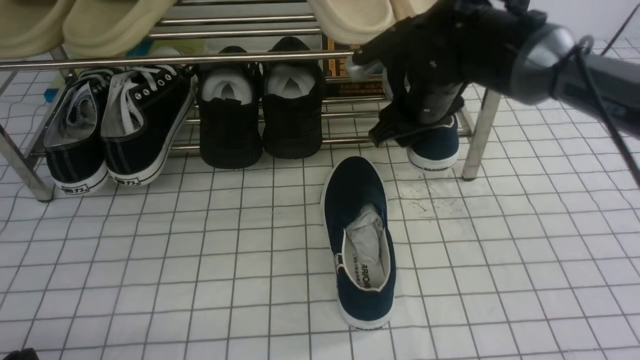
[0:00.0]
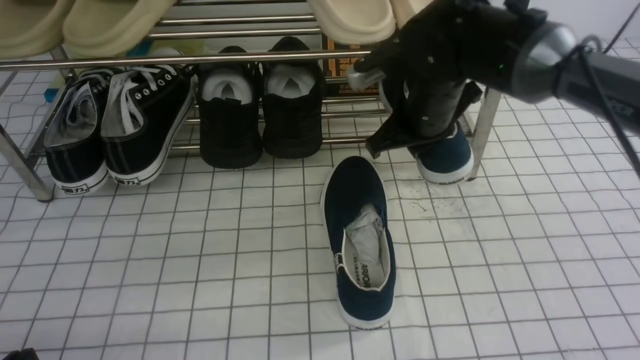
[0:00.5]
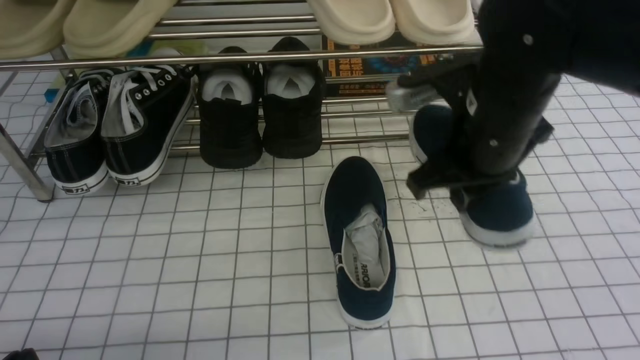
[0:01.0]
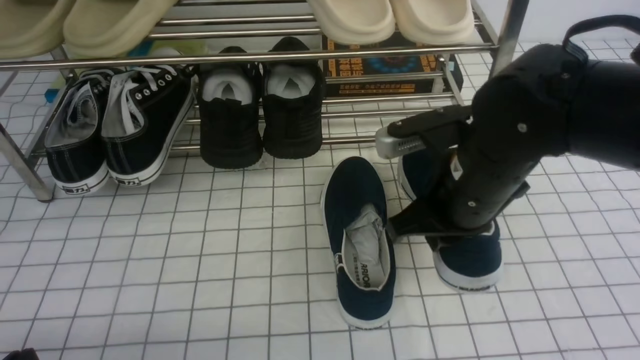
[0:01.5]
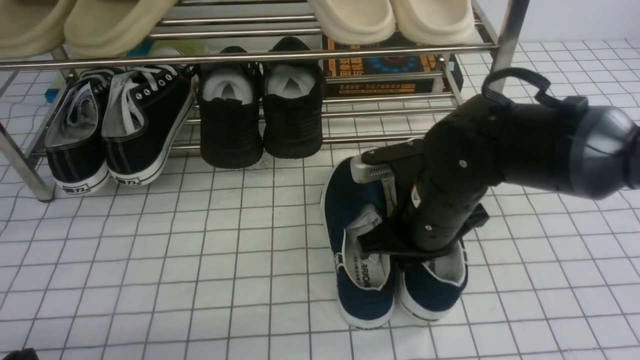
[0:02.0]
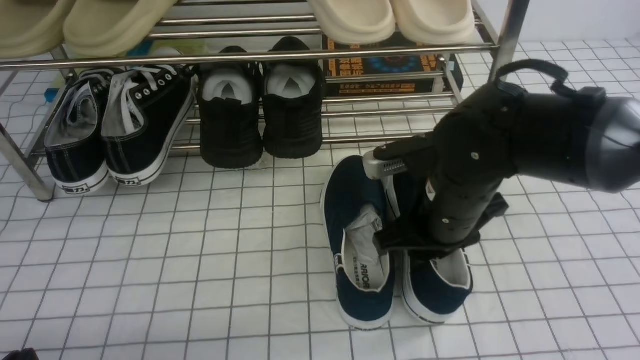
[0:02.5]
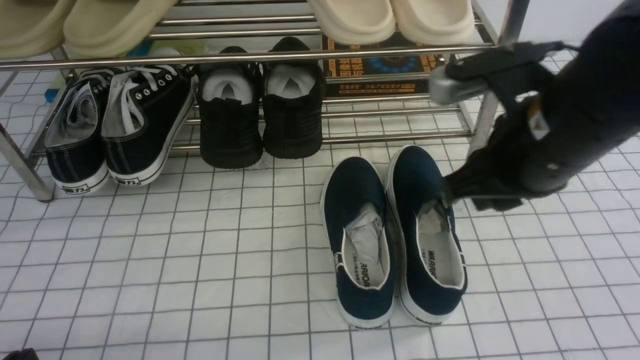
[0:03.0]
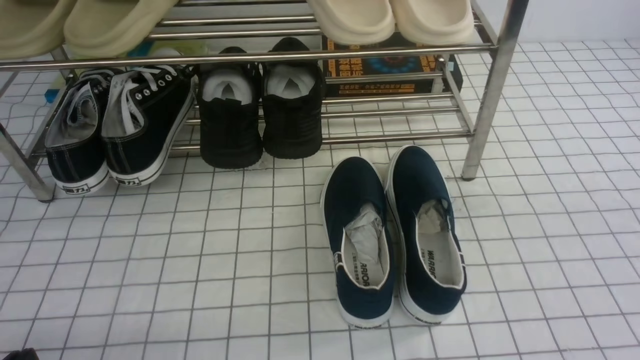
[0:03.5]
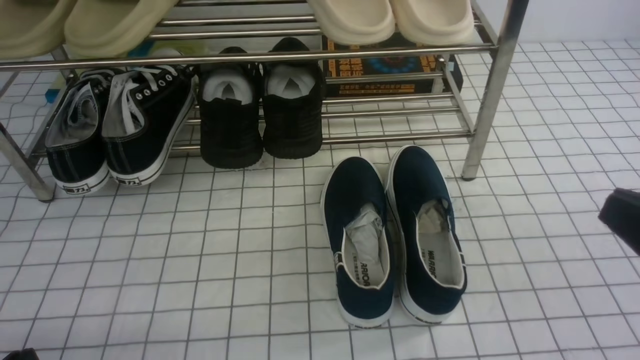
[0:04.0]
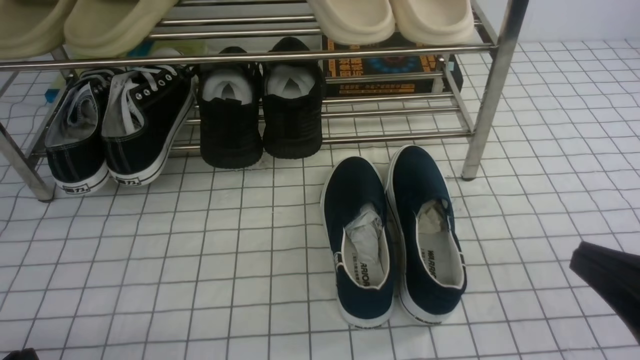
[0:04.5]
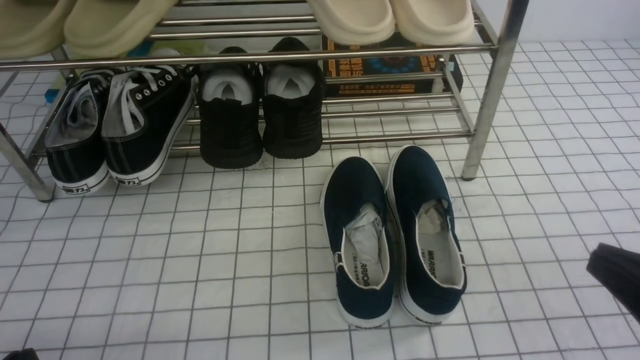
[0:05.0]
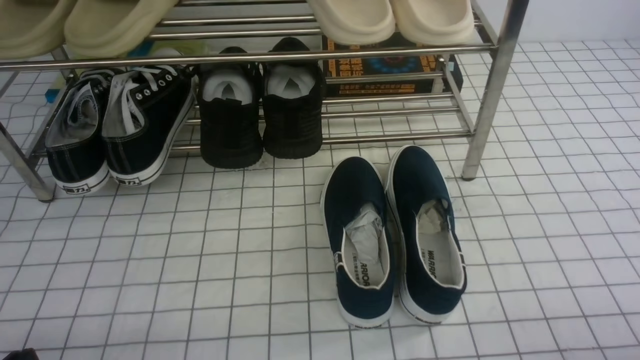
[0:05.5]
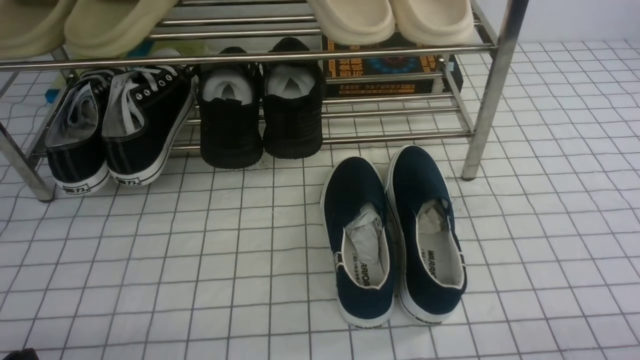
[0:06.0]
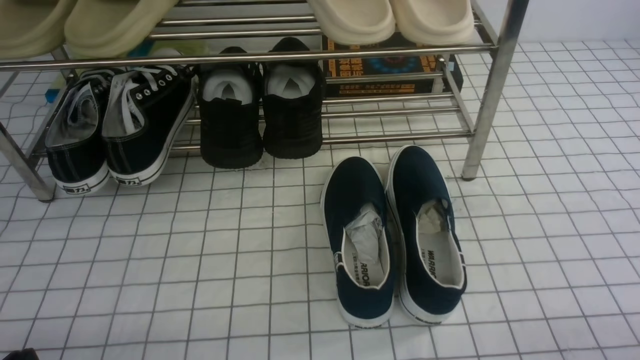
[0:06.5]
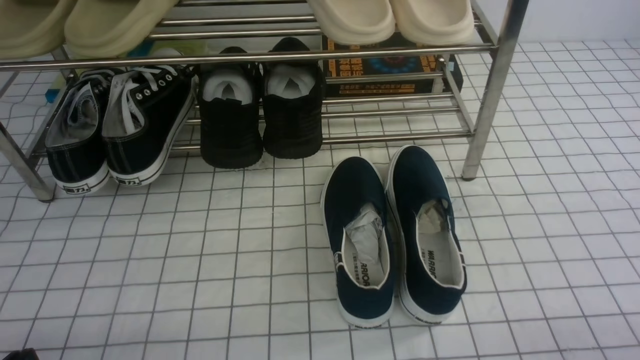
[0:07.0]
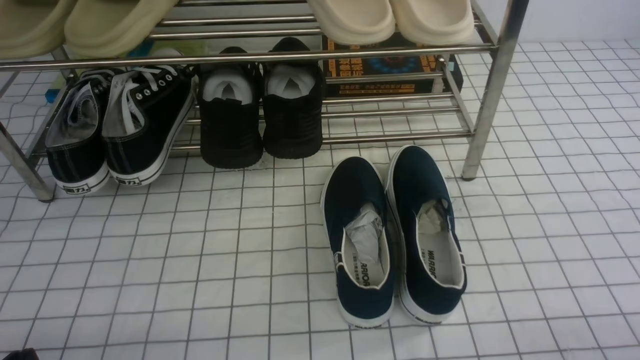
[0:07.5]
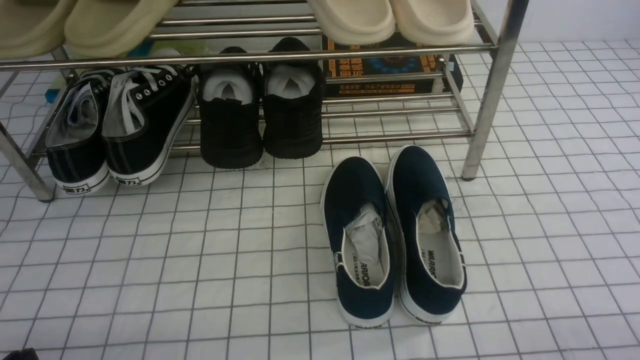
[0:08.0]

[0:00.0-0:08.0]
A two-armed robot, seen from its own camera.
Step, 0:00.5 to 0:02.5: use the right arm to take out the clamped shoe from the shoe rack and put it down.
0:00.0 to 0:02.0: The right gripper moves backward, approximately 10 cm, and closes.
0:02.0 to 0:04.0: The right gripper is displaced backward, to the right and upward by some 30 cm, and opens, then closes once more.
0:04.0 to 0:06.0: The right gripper goes about 15 cm downward and to the right.
0:06.0 to 0:08.0: Both grippers stay about where they are.
